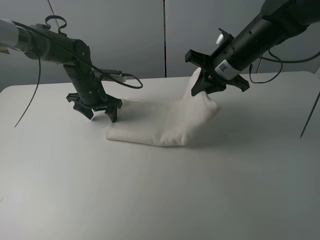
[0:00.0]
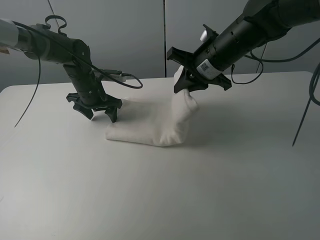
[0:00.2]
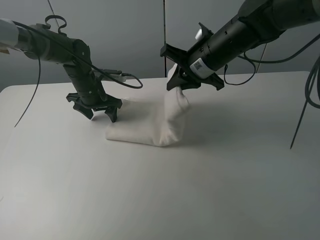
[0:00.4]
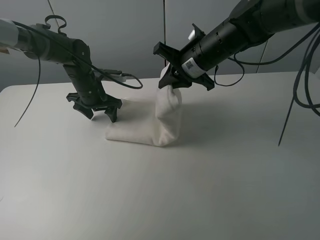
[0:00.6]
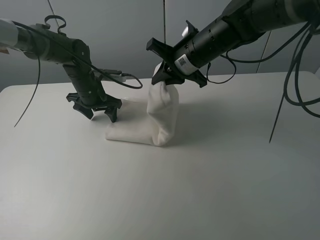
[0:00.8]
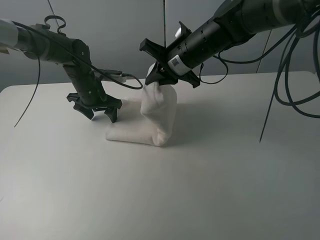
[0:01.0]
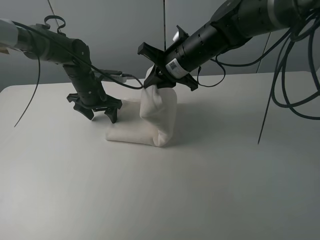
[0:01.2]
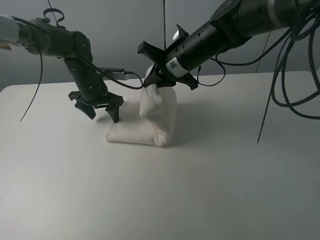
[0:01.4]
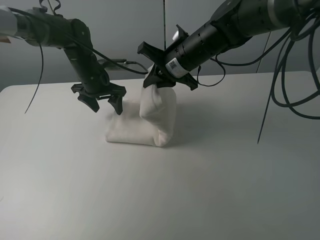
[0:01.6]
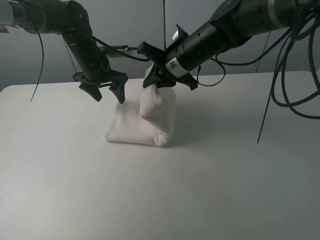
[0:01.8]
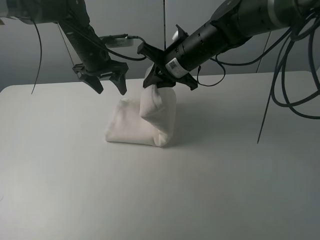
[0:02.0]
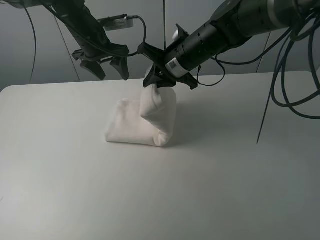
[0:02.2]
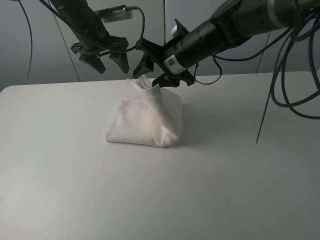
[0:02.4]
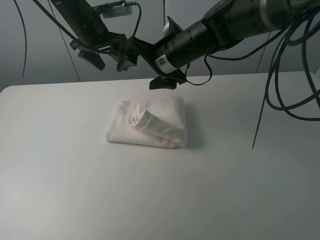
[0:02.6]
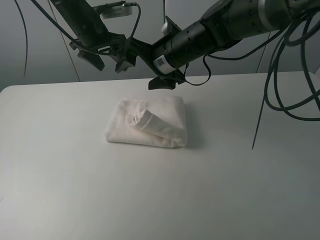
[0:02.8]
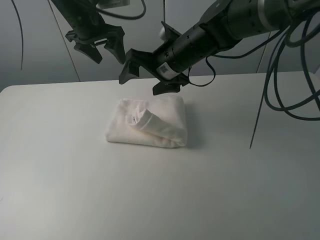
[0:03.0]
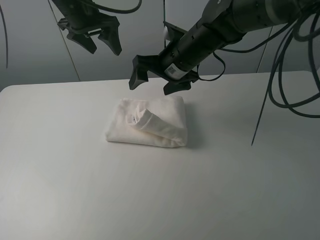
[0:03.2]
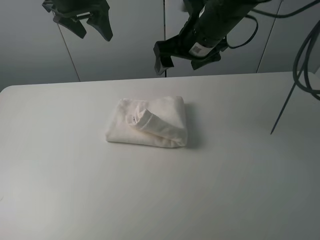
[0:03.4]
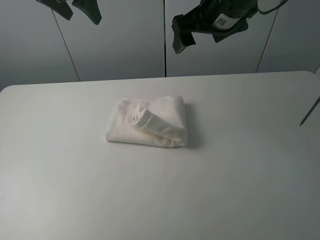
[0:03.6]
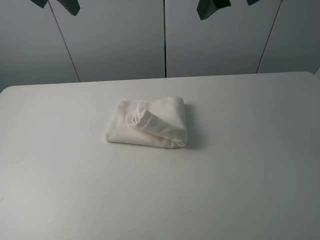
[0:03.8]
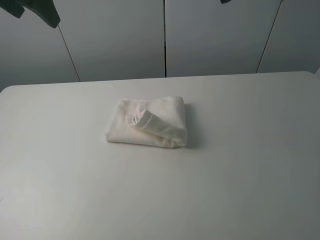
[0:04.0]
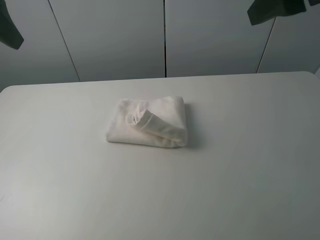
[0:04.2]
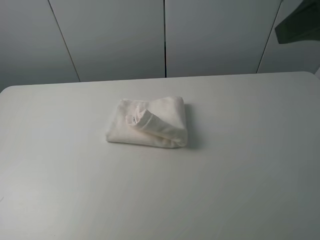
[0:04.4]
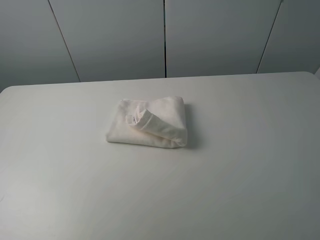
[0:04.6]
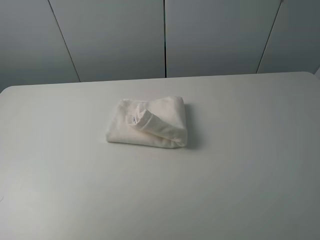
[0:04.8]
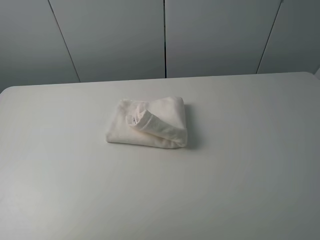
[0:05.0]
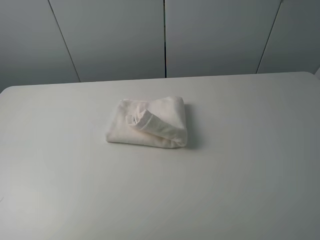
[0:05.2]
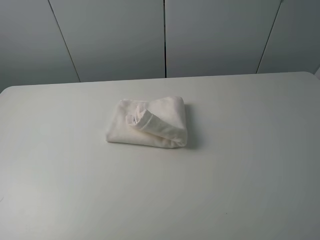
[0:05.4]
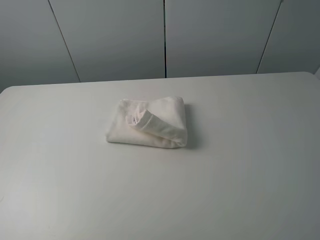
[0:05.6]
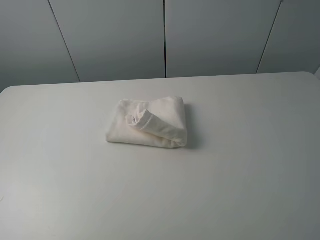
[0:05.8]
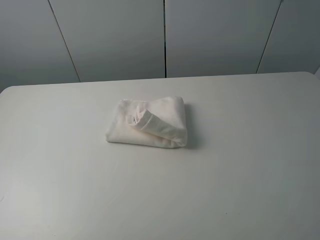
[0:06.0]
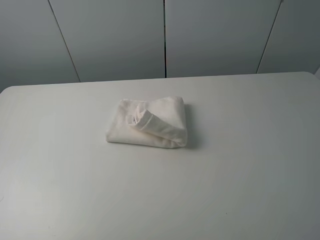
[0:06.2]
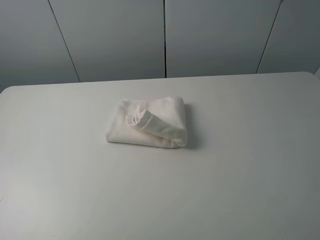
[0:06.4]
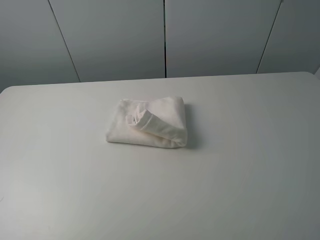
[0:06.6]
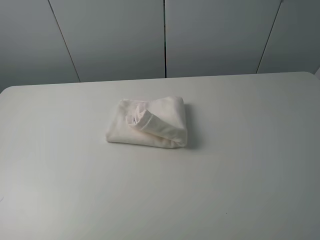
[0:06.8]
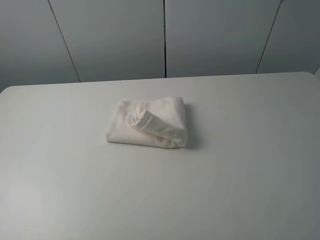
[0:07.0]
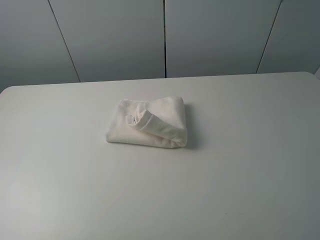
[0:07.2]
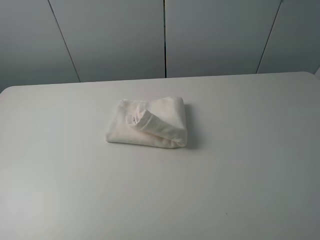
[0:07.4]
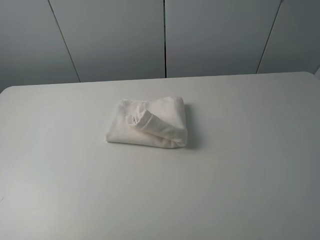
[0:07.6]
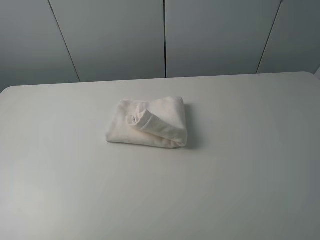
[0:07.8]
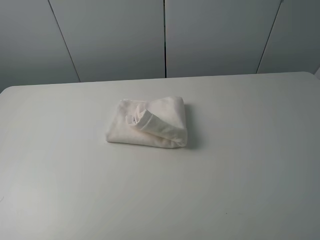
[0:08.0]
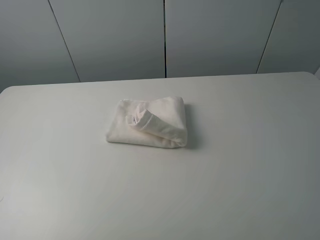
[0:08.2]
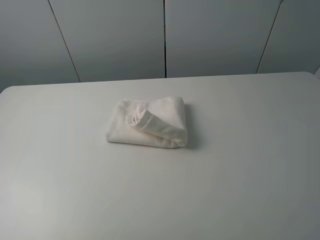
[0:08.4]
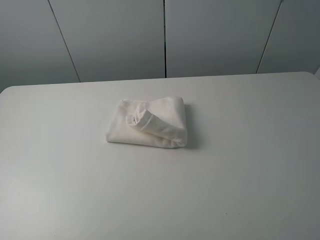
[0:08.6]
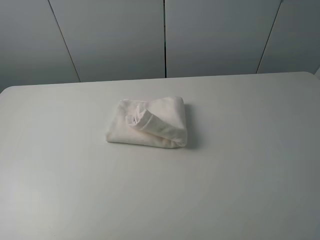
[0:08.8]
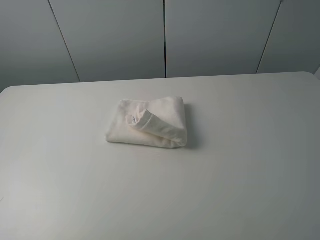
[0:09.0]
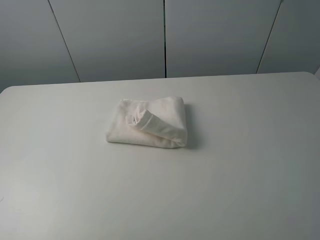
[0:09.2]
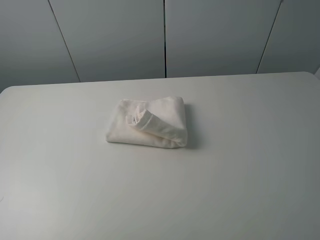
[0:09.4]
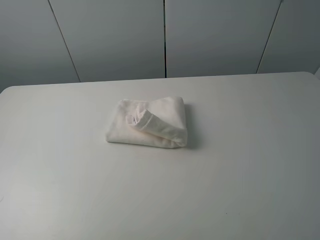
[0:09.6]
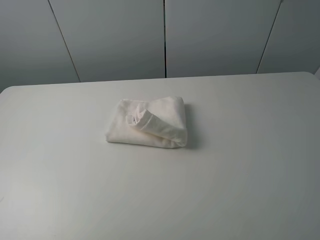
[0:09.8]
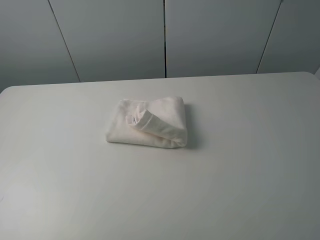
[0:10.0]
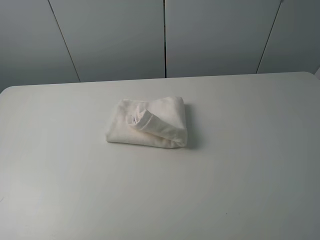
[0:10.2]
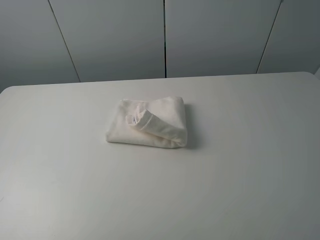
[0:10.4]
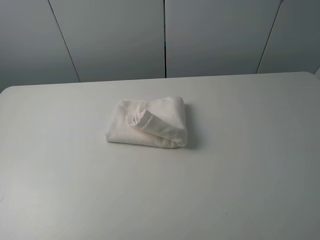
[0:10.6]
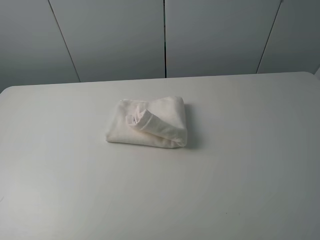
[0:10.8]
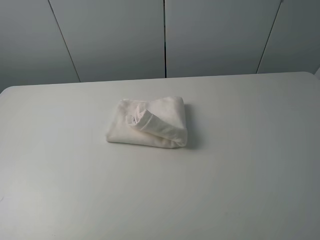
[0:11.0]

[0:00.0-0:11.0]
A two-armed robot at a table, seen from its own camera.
Task of the whole recording: fold the towels on the table.
Step, 0:00.0 to 0:02.8: Fold the white towel from right to left with right gripper.
0:00.0 to 0:01.6: The right gripper goes some 10 cm to the left.
0:01.6 to 0:03.2: The left gripper shifts approximately 15 cm upward, while the right gripper opens up.
0:03.2 to 0:04.8: The left gripper is displaced backward by about 35 cm. Meanwhile the right gripper travels backward, to the right and upward by roughly 40 cm.
0:07.8 to 0:11.0: The two grippers keep their place.

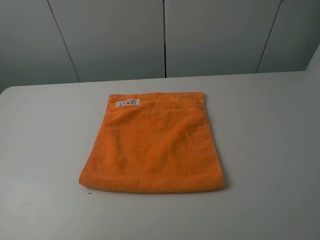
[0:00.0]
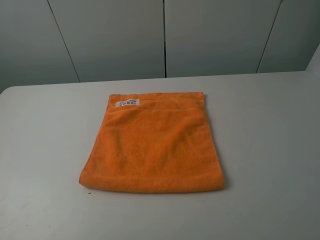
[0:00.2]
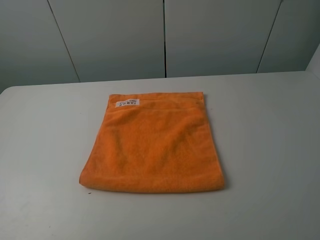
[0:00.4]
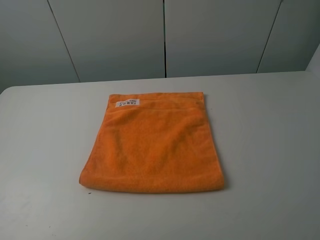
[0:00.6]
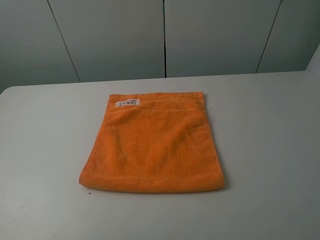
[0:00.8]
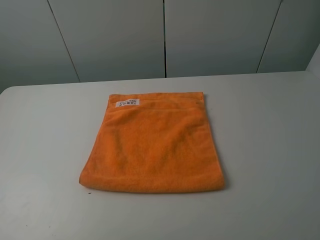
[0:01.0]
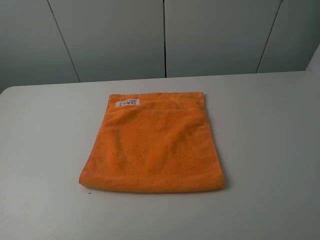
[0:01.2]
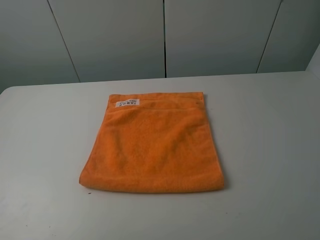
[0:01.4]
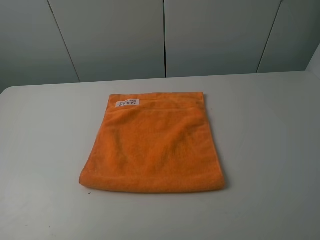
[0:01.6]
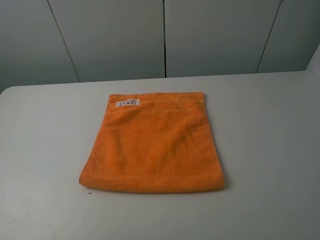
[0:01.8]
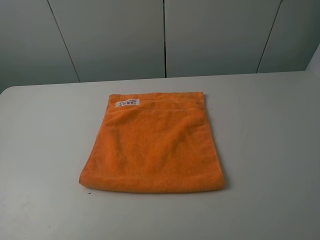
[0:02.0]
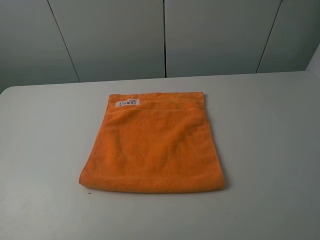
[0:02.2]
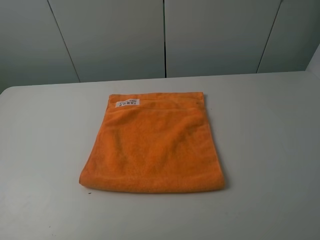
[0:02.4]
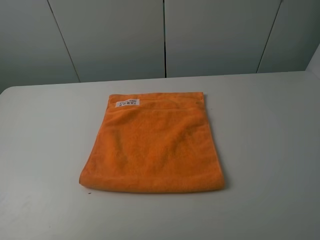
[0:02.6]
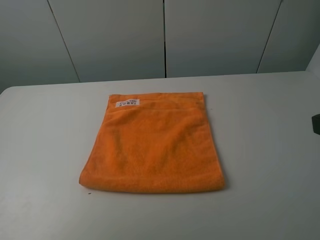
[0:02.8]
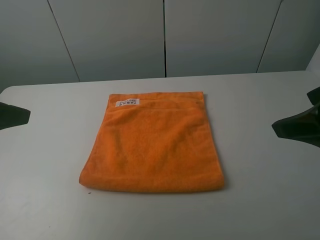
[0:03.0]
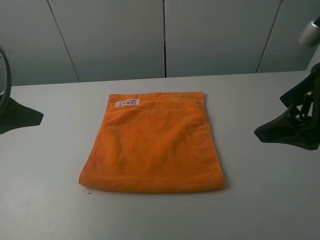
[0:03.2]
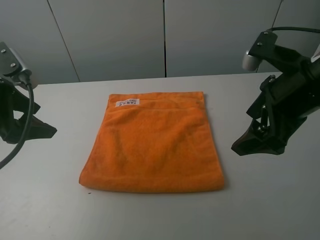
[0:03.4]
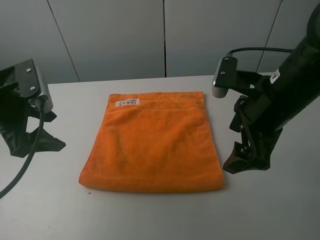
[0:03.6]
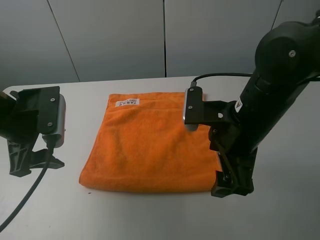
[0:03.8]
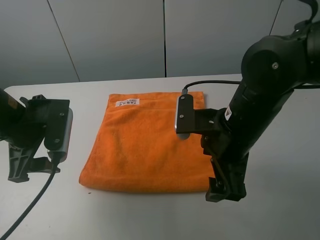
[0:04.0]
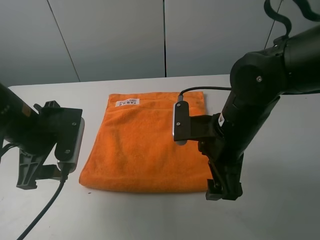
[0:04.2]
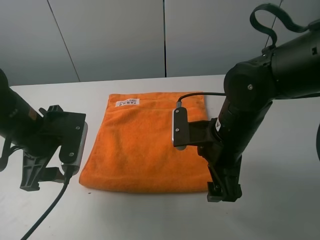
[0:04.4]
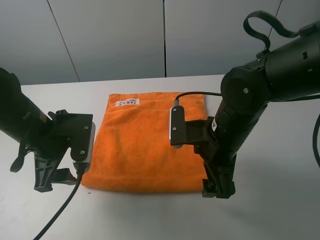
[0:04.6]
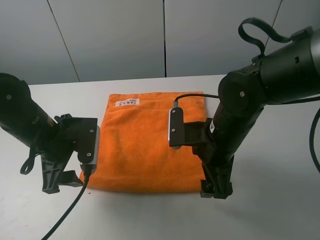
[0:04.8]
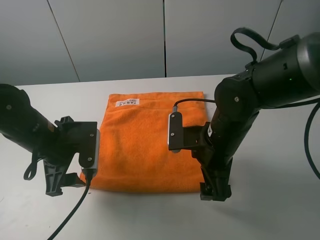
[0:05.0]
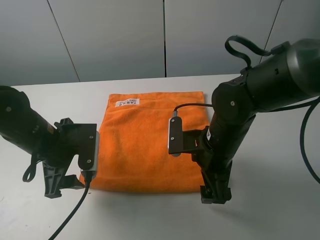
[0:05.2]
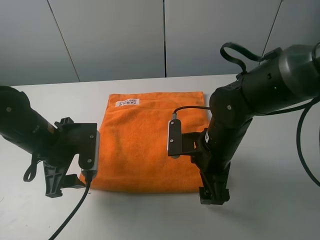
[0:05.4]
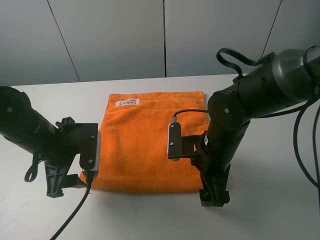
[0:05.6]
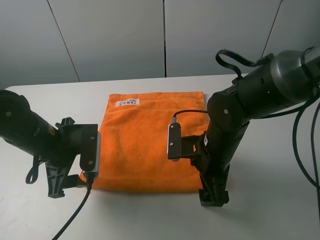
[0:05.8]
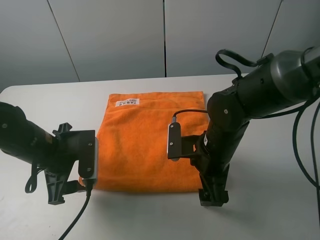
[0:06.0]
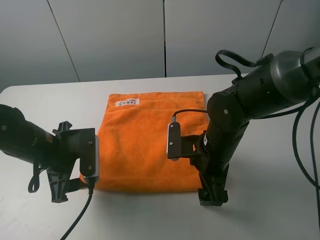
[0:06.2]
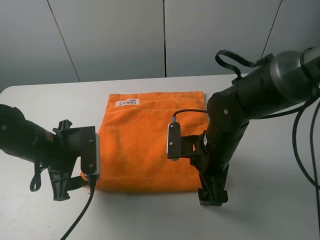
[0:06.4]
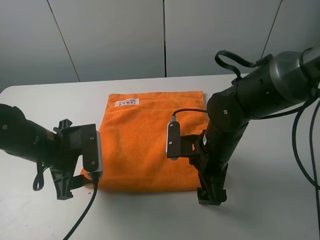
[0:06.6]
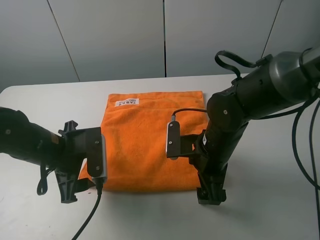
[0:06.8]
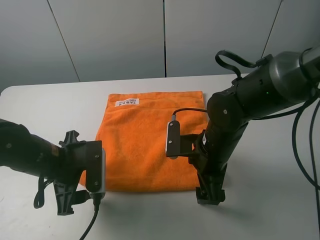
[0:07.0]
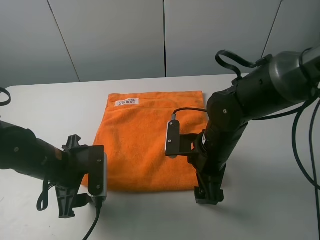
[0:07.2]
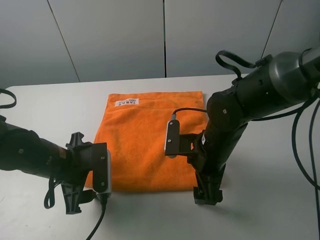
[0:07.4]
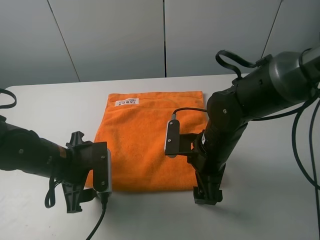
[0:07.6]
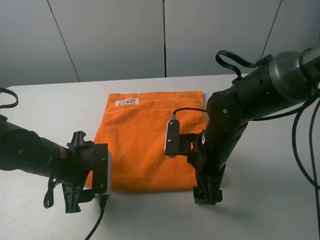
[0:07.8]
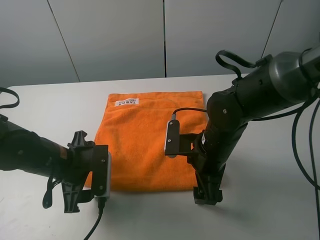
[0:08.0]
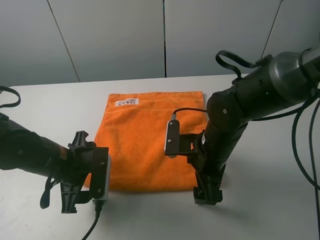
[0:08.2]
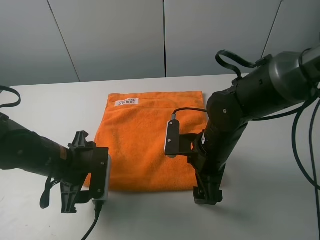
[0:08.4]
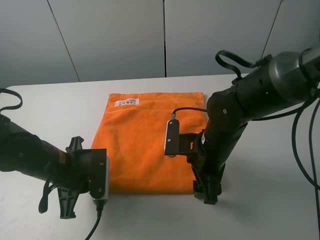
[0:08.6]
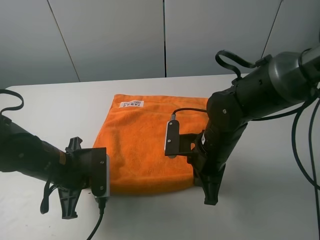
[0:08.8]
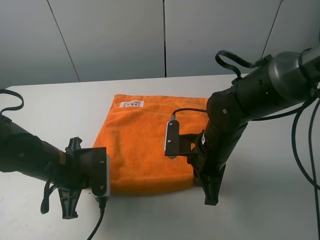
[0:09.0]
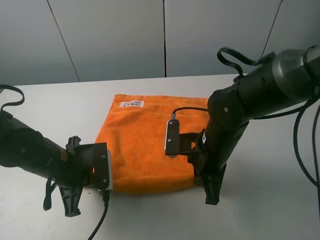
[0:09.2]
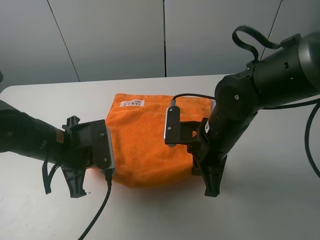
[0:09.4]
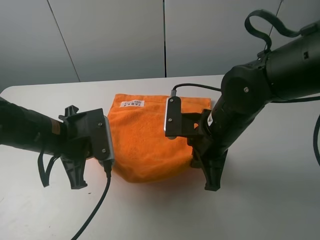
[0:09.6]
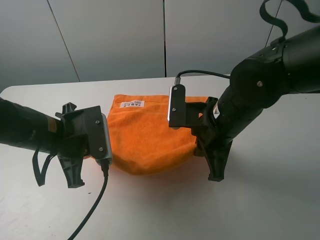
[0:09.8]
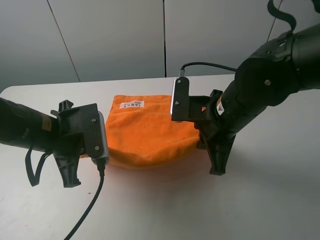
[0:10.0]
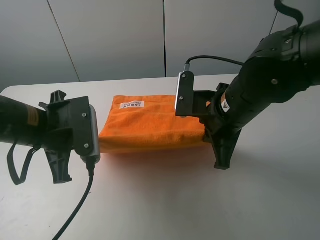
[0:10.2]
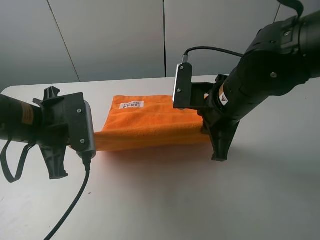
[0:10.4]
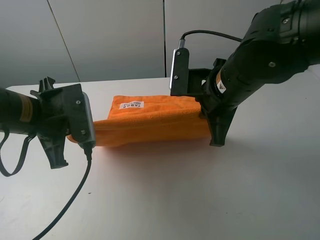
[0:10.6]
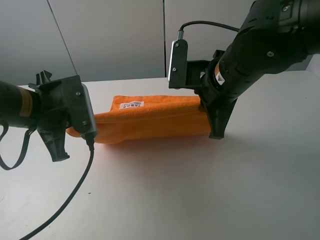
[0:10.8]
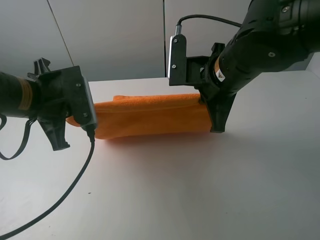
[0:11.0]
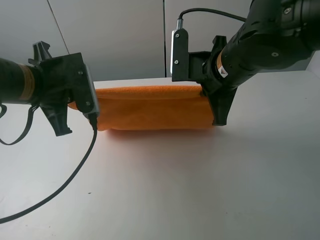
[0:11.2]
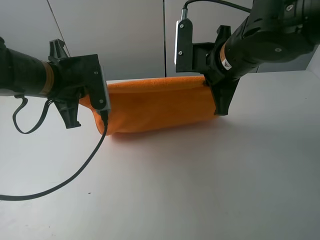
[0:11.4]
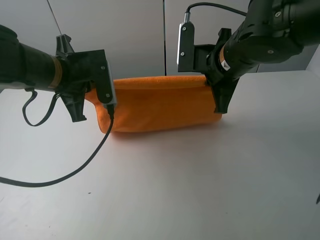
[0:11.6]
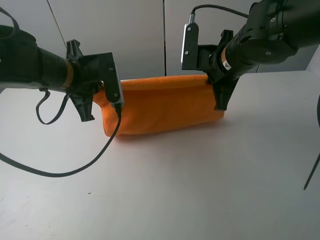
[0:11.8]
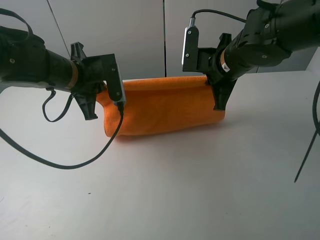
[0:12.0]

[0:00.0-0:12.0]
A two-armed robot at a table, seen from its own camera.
Task of the whole recording: fold the towels on the table.
Step, 0:00.0 to 0:08.8: Grasp the orange towel with the left gripper.
0:01.6 to 0:03.0: The grippers both shift forward by some 15 cm.
0:03.0 to 0:04.4: The right gripper goes roughly 20 cm to the left, downward and forward. The left gripper moves downward, to the right and forward, about 15 cm.
0:04.4 to 0:06.0: Both grippers move downward, some 5 cm.
0:06.0 to 0:07.6: The grippers move only a little.
0:07.6 to 0:09.0: The left gripper closes up. The right gripper closes up.
0:09.0 to 0:10.4: The two grippers go approximately 10 cm upward.
0:10.4 to 0:12.0: The grippers both shift forward by about 10 cm.
